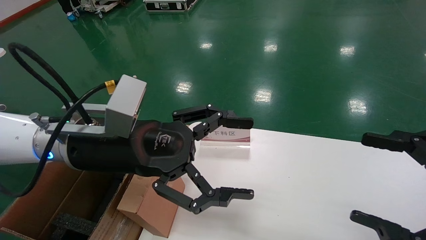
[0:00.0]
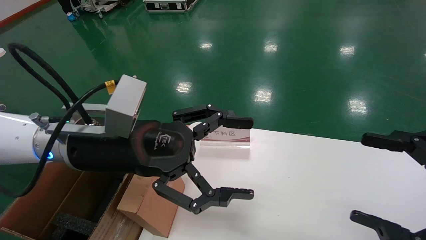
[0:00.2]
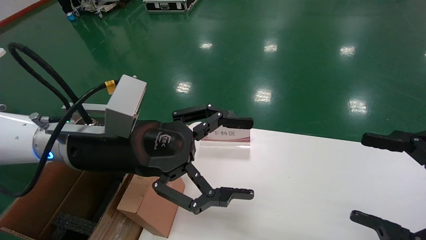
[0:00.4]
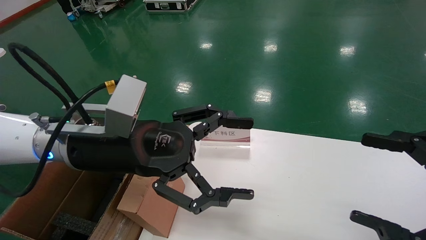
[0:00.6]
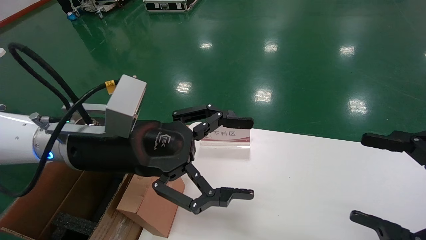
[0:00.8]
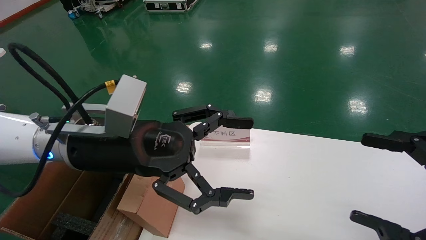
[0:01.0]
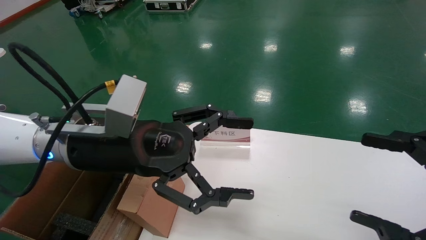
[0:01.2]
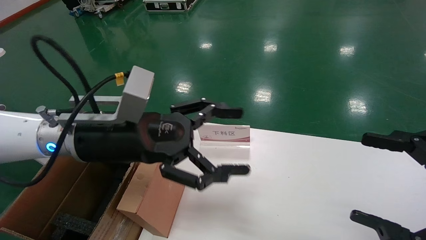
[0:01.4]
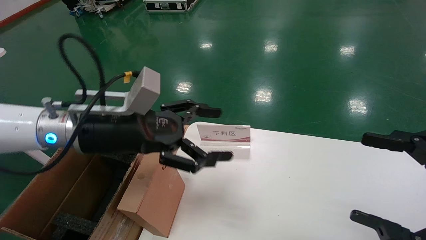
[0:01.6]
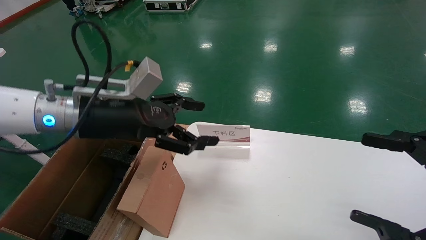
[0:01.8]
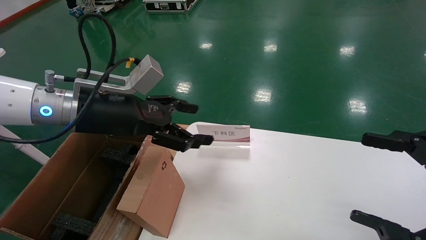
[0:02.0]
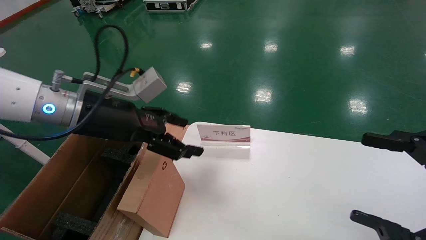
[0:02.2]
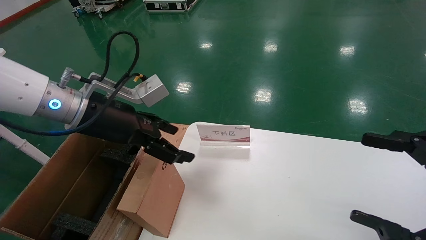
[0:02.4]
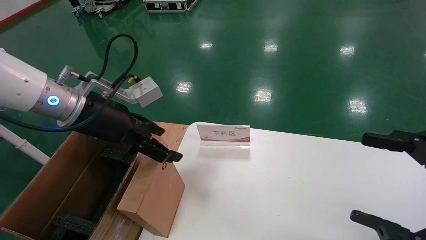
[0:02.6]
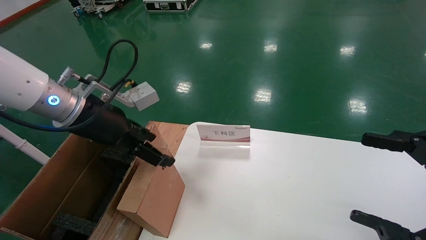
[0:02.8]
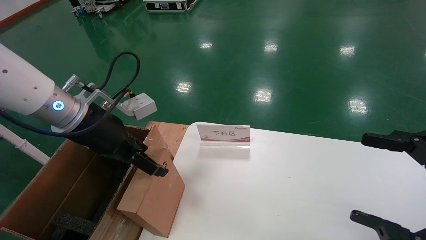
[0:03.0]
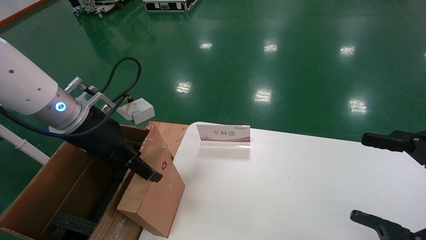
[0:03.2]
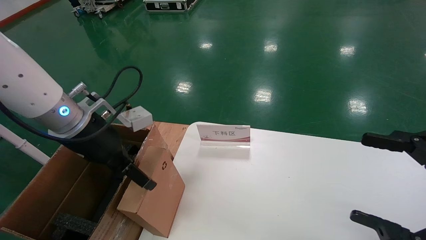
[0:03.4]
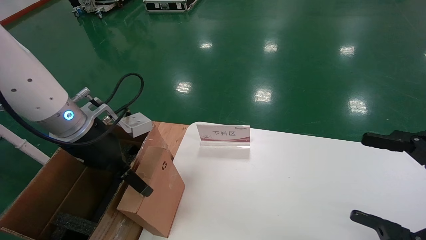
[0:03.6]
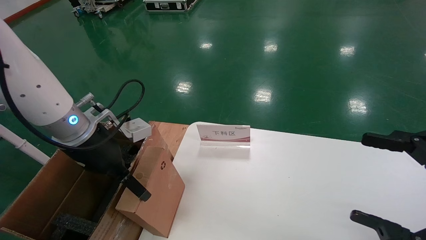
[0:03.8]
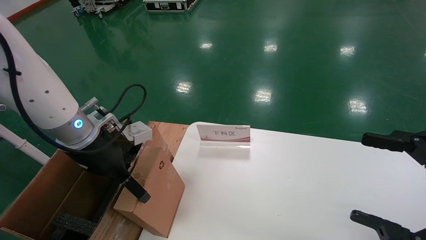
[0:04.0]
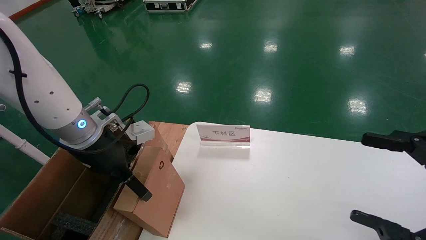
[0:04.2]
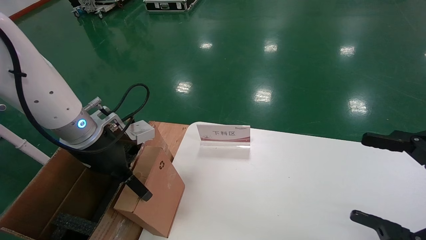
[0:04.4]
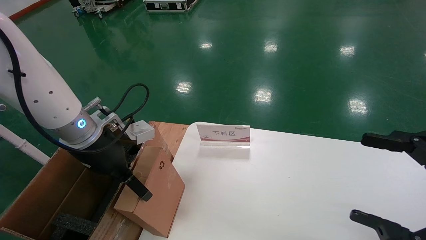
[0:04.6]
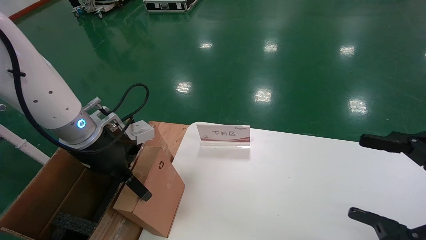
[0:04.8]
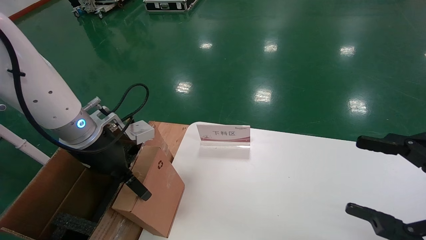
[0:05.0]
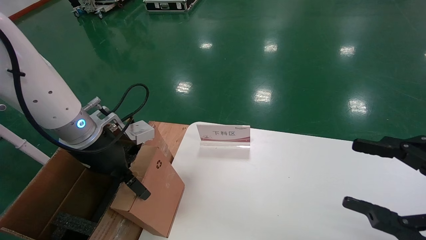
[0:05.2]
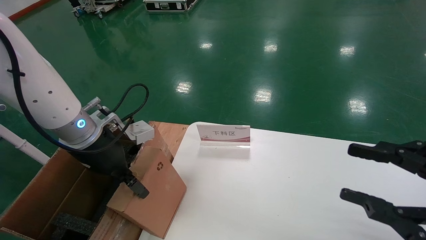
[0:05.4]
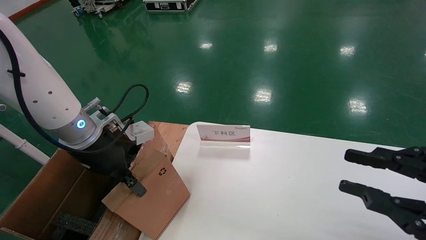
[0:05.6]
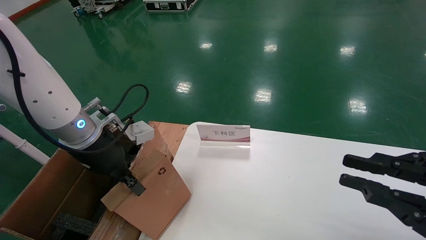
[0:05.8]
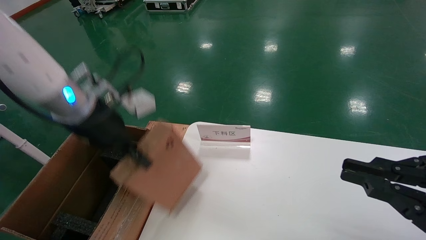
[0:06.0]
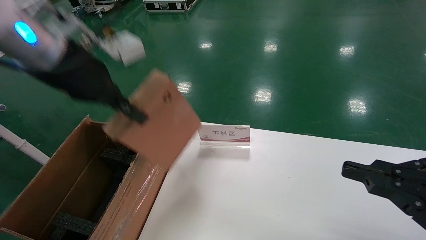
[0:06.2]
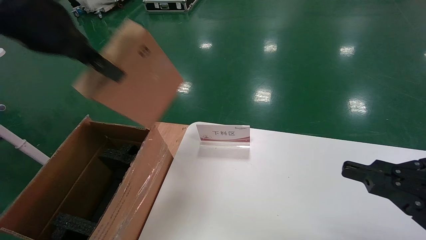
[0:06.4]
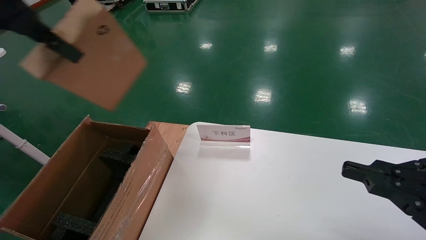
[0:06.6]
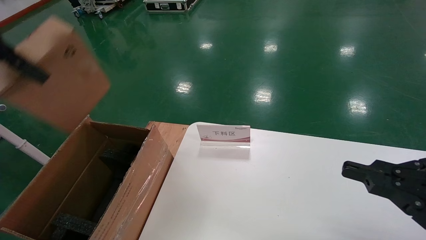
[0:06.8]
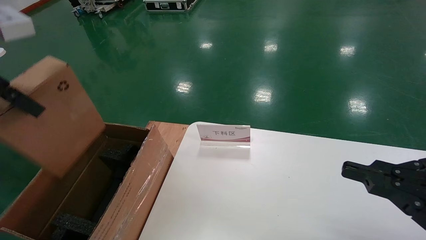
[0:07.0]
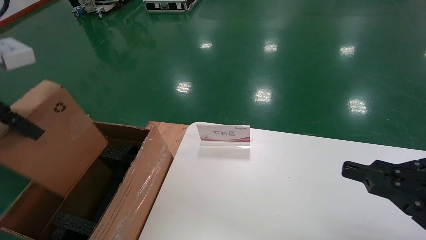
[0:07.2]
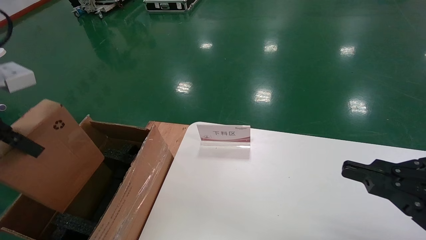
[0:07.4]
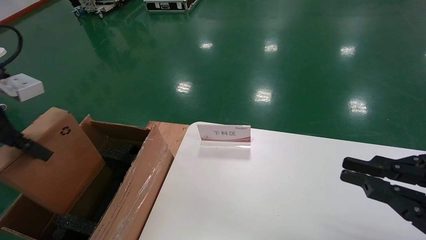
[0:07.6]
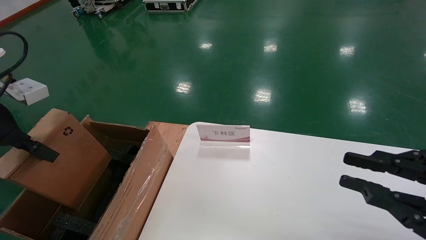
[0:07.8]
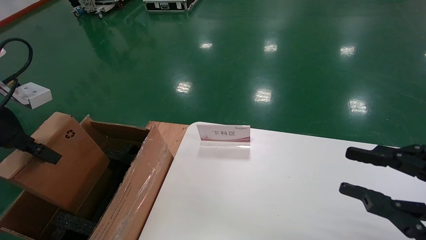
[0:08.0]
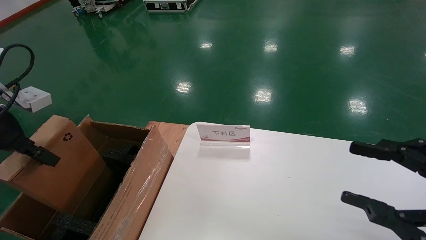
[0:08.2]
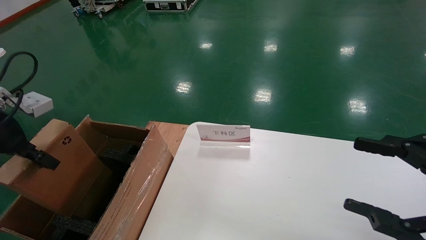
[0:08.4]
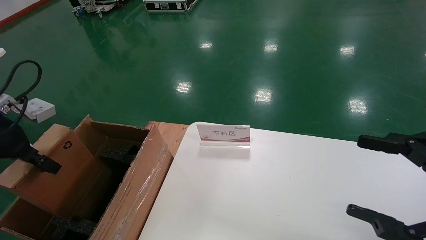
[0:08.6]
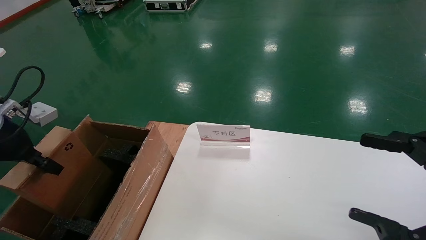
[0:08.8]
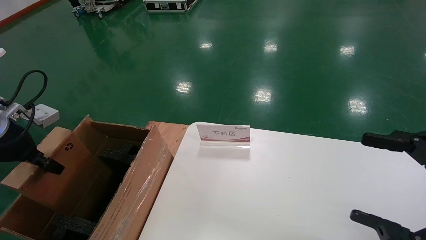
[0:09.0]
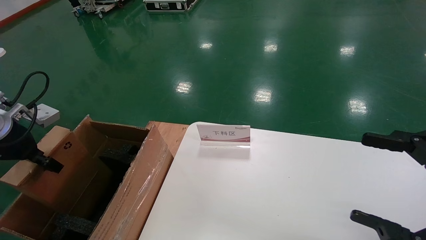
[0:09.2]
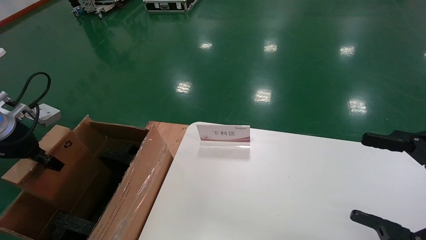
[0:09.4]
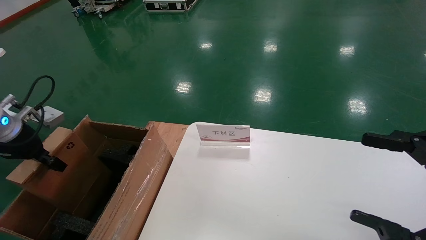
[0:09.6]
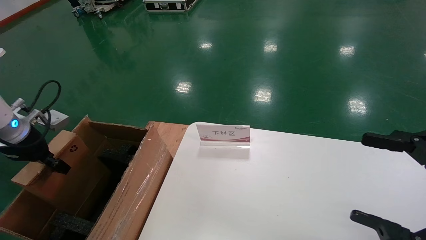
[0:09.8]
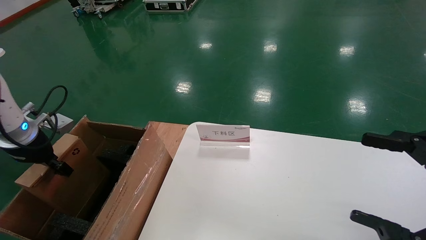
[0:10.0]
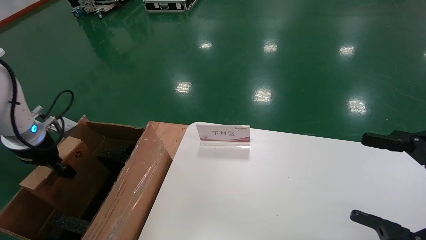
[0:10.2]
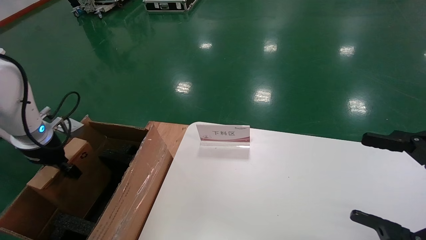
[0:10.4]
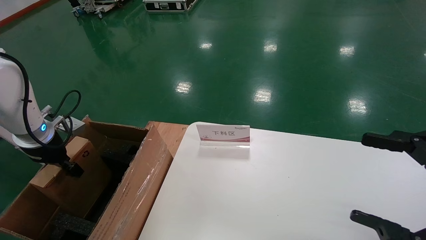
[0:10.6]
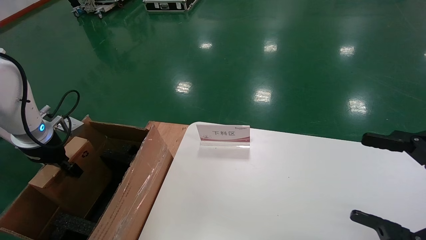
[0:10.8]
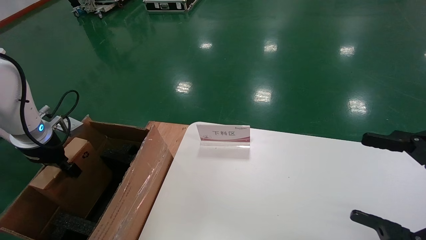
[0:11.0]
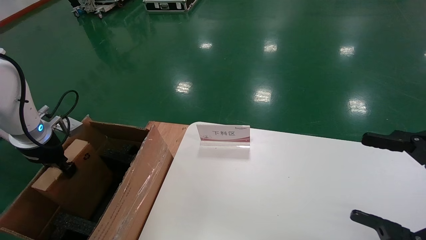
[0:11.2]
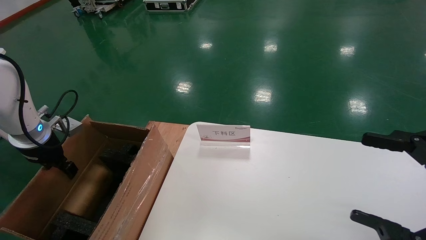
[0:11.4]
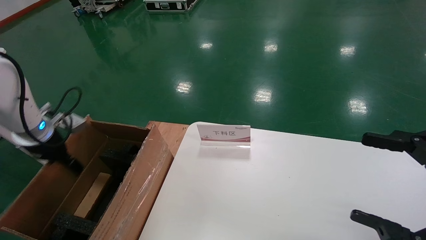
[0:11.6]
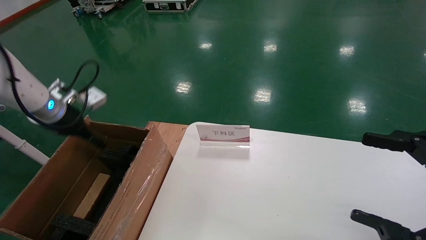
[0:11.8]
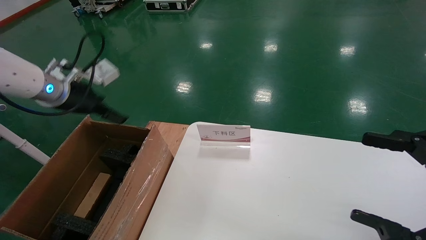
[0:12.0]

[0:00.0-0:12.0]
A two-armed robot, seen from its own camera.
Task of the whole recording: pick up the small cardboard box and load it into the large cardboard box.
Step, 0:01.8 to 0:06.2: Pick up the mouse and power cord box.
Step, 0:06.4 to 0:11.6: Place the mouse and power cord box into the case.
0:03.0 to 0:04.4: The grippers stay close to where they were, moving slightly.
0:04.4 to 0:06.0: The right gripper closes up; the left gripper is displaced upward by approximately 10 cm, and closes.
0:06.0 to 0:07.6: The left gripper goes some 15 cm to the left and backward, and travels upward and back again, some 15 cm each way.
0:07.6 to 0:09.0: The right gripper opens its fingers; the left gripper heads downward and forward, covering some 10 cm.
0:09.0 to 0:10.4: The left gripper shifts roughly 10 cm forward and downward.
0:10.4 to 0:12.0: The left gripper shifts approximately 10 cm upward and to the right, and opens its fingers.

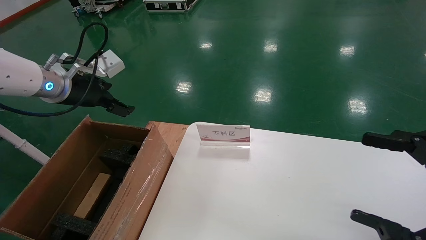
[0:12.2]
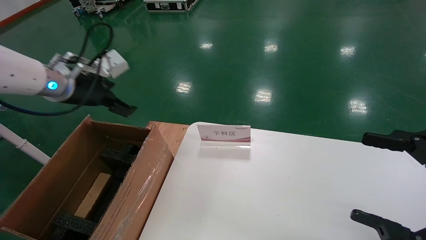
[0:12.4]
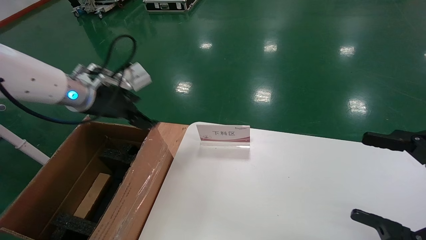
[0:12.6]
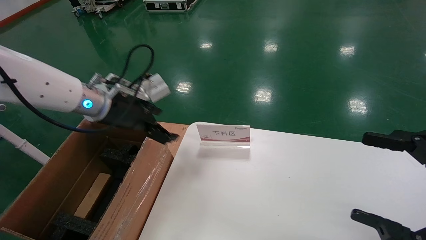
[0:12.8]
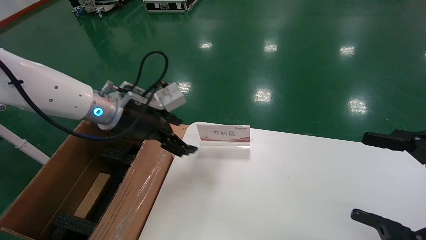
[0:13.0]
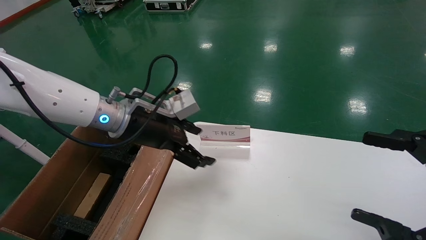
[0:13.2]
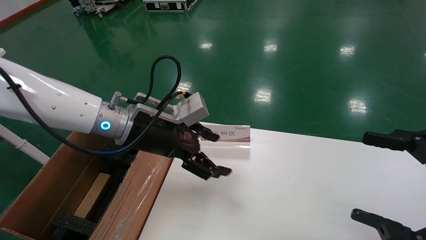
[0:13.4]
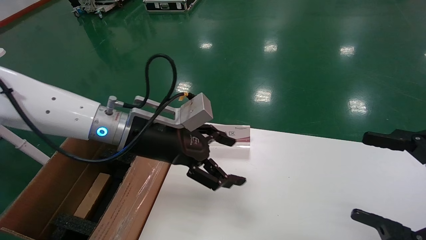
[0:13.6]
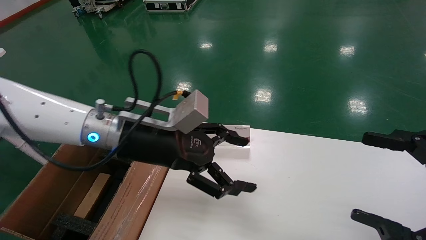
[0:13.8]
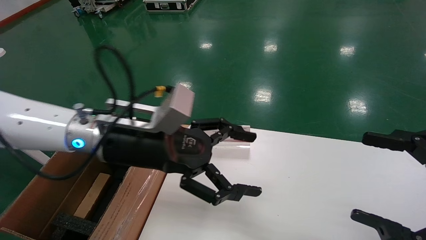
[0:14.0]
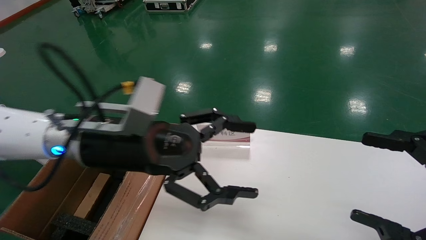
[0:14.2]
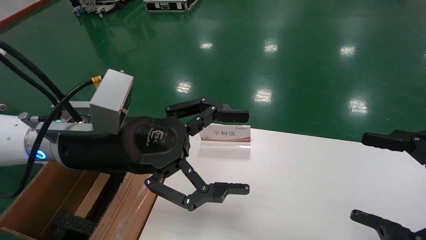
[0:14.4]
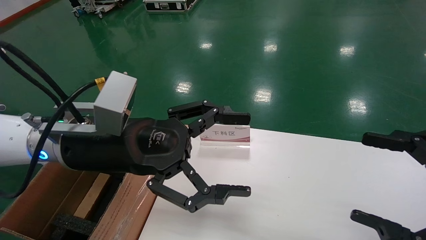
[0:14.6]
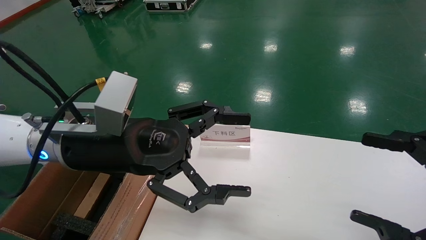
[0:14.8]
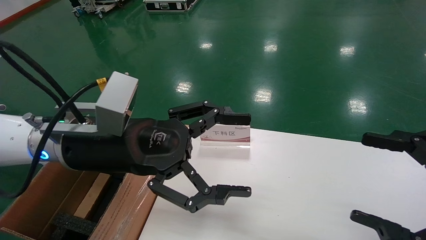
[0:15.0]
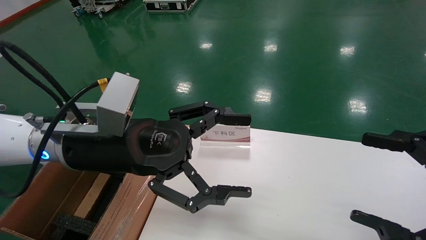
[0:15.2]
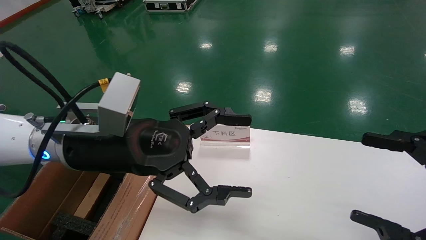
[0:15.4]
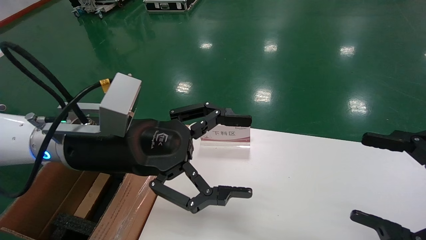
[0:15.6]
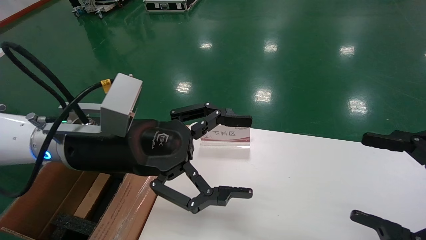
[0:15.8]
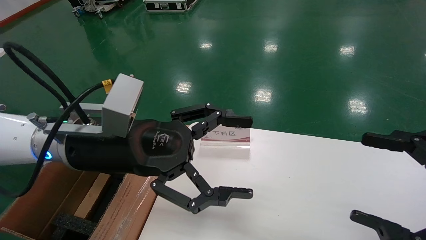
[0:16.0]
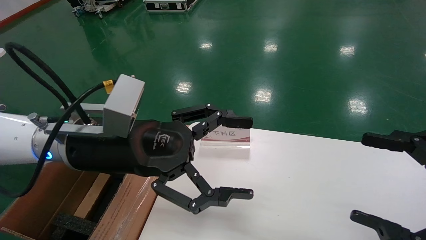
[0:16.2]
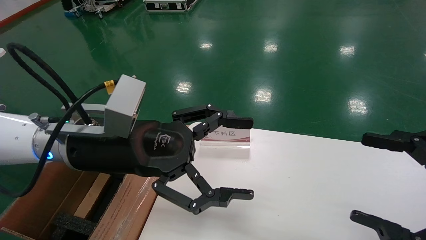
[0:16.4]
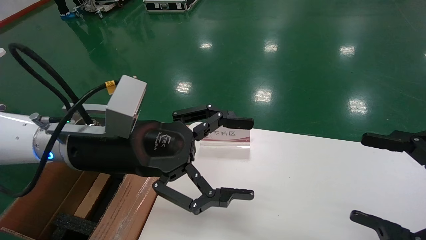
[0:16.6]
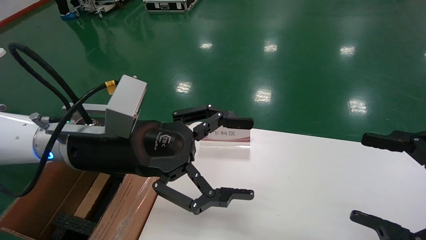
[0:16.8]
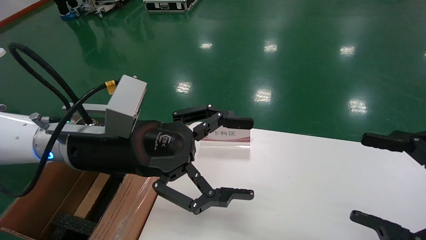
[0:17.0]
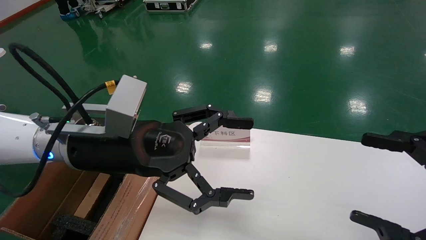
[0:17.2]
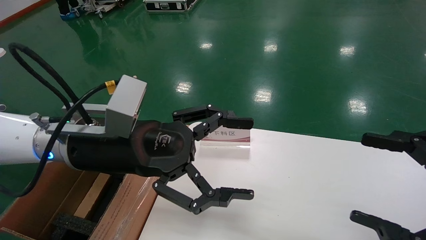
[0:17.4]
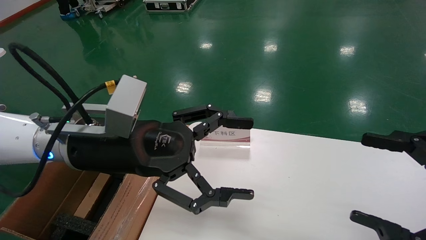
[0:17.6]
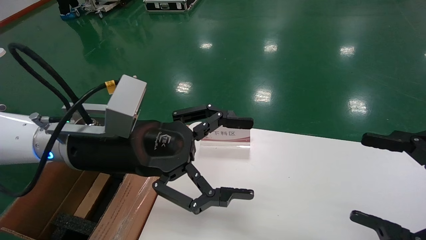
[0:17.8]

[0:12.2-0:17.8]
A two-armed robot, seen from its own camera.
Task of the whole recording: pick up the small cardboard box and load it into the large cardboard box.
0:12.2 to 0:13.6: The left gripper heads to the right, covering roughly 15 cm.
0:13.6 to 0:15.0: The left gripper moves backward, approximately 5 cm.
0:15.0 to 0:17.8: Both grippers stay about where they are.
